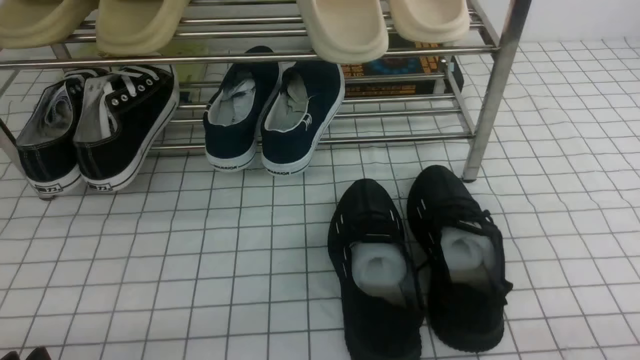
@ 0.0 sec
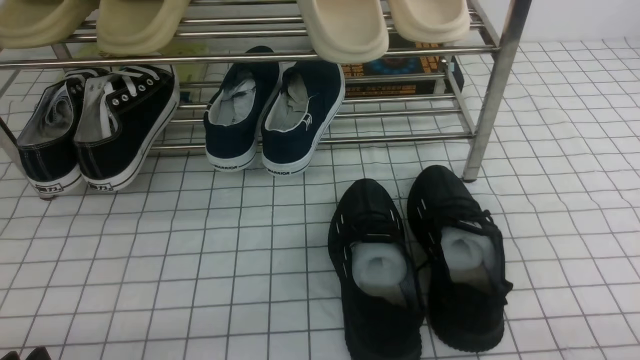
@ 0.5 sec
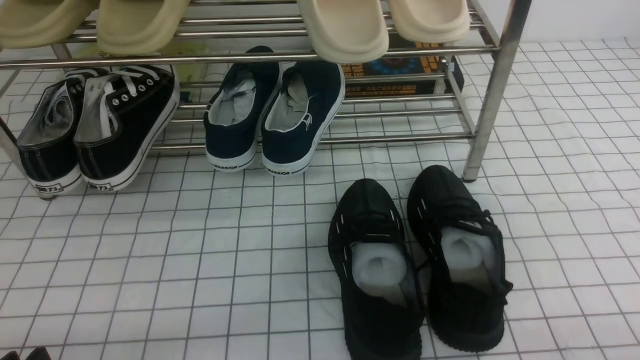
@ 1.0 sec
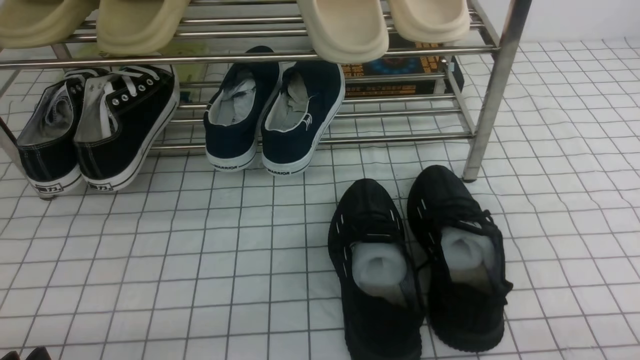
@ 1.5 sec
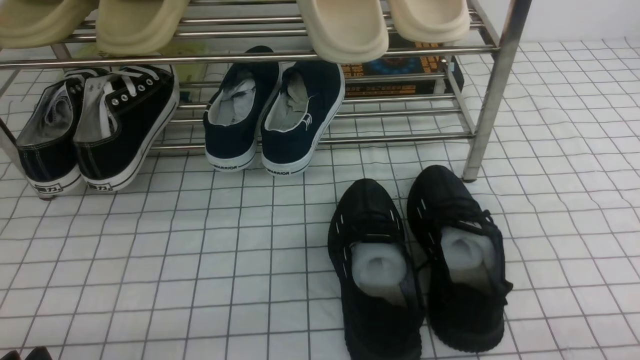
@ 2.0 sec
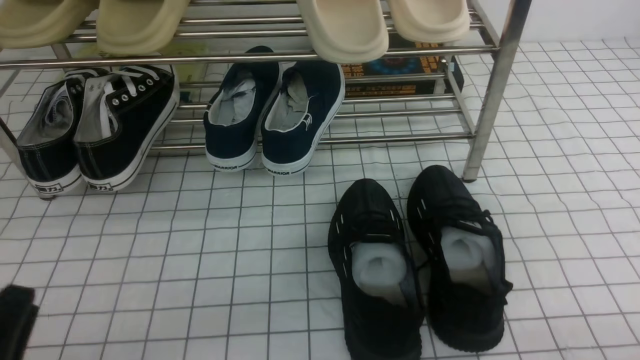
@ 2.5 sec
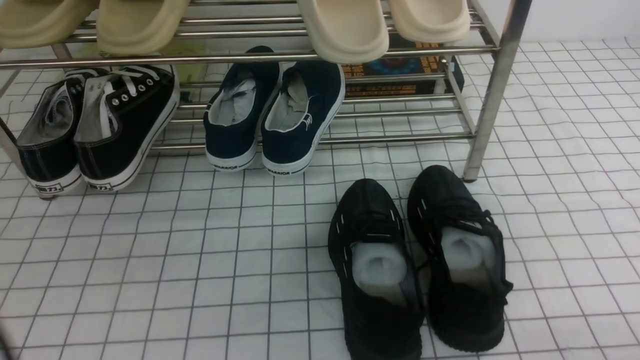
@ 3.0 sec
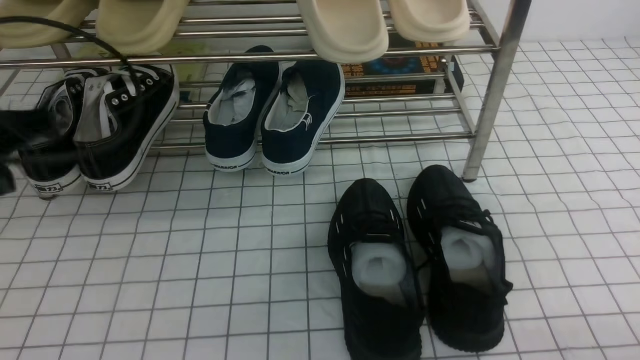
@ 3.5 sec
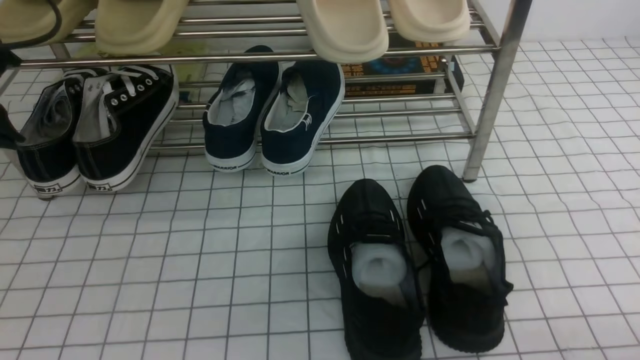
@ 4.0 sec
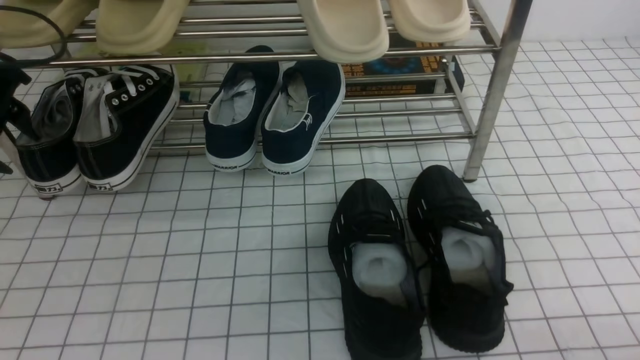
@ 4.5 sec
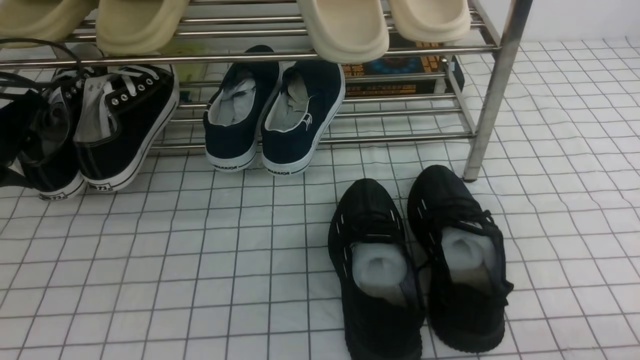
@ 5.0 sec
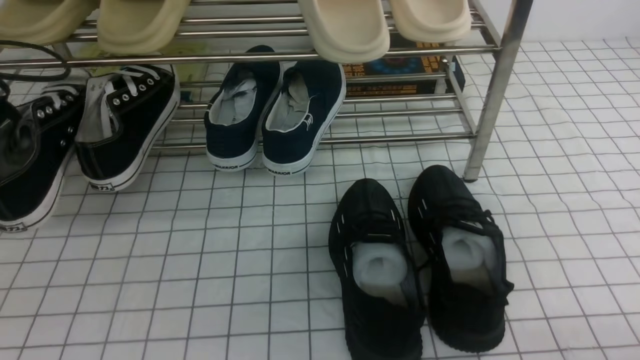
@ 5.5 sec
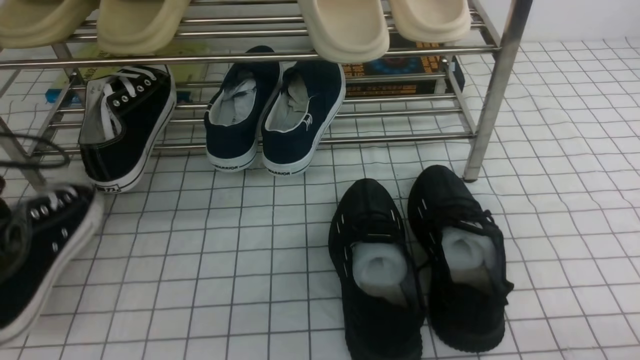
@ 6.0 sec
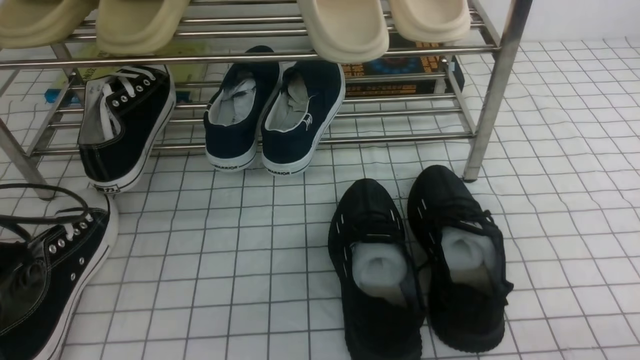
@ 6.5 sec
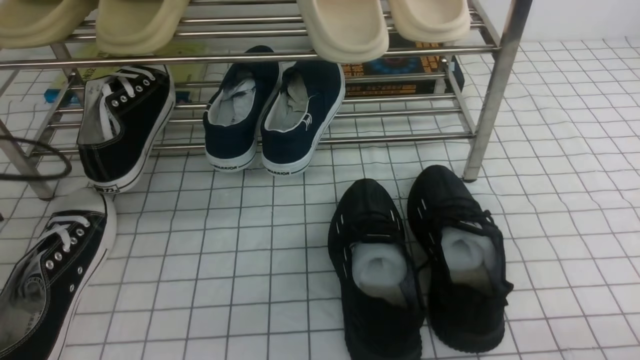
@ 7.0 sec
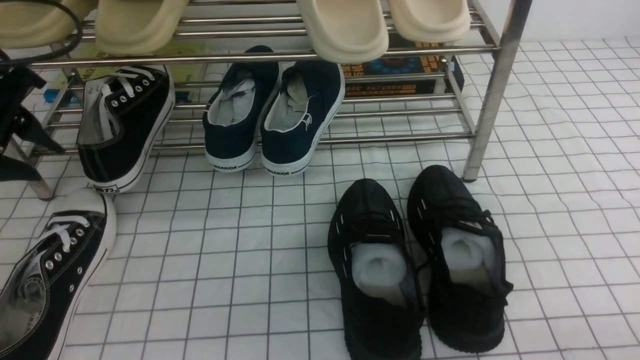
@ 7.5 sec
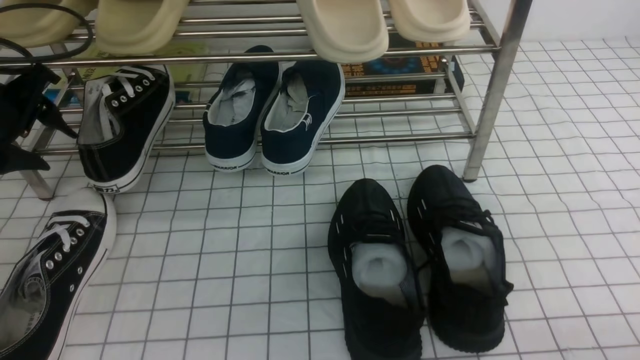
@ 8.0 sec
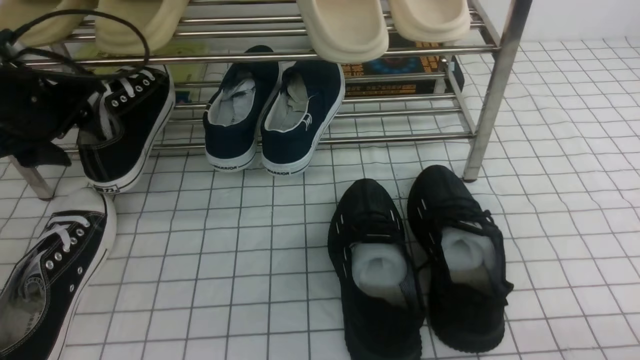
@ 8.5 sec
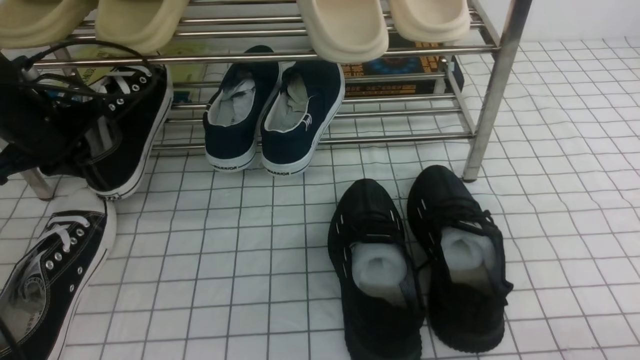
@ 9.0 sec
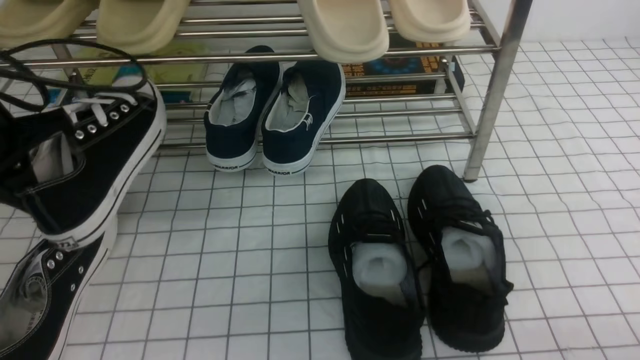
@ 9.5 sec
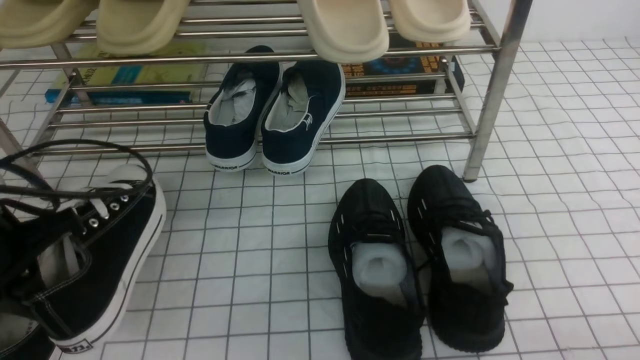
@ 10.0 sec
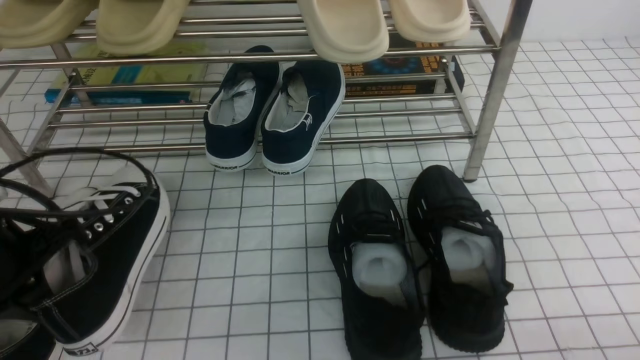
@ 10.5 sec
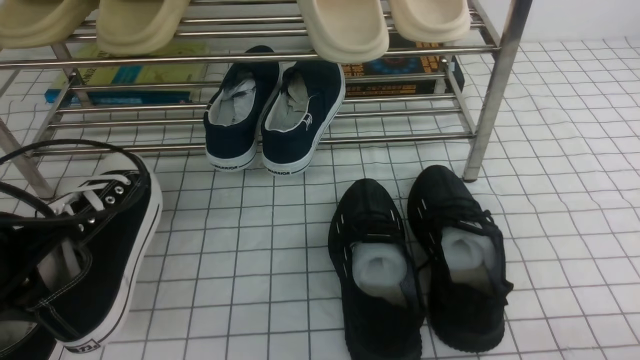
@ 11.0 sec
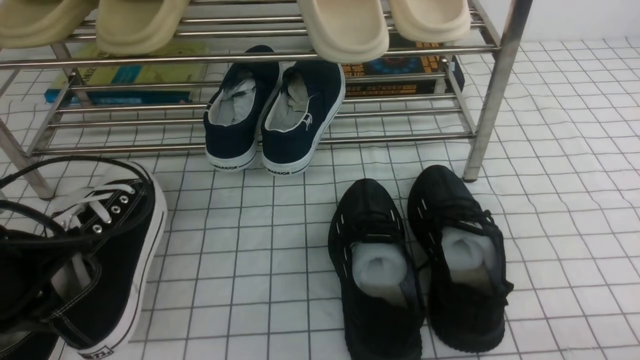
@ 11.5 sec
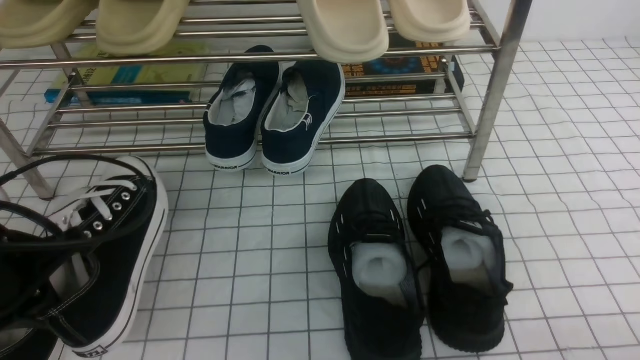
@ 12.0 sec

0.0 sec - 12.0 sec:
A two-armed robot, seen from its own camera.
Step, 0.0 sec - 4.5 sec: use the left arm to clamp a shoe on the left side of the shoe rack.
Step, 5.5 sec - 6.5 sec: Use your left arm to remove the clamped shoe from the shoe rack and put it down.
Step, 7.0 sec - 9.0 sec: use the left arm to clamp a shoe on the left side of the shoe rack.
2.0 sec - 4.0 sec: The left gripper goes approximately 30 cm forward and upward.
4.0 sec - 6.0 sec: The left gripper heads backward and downward, covering about 10 cm, and opens, then closes once more.
6.0 sec - 8.0 sec: The left gripper goes roughly 10 cm forward, and opens its fingers.
8.0 sec - 10.0 sec: The left gripper moves backward, some 15 cm, and closes up.
10.0 sec - 12.0 sec: The grippers stay close to where they were, moving slightly.

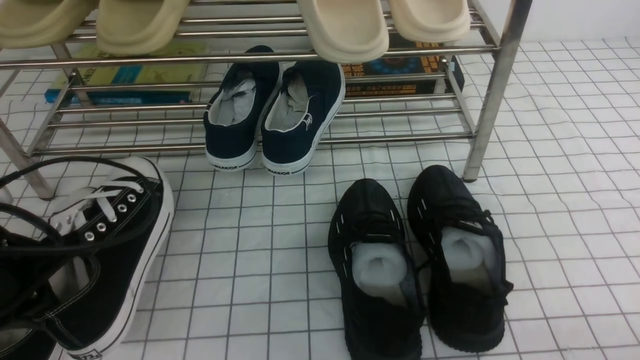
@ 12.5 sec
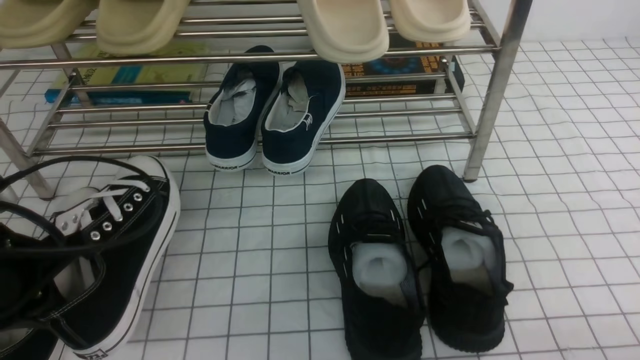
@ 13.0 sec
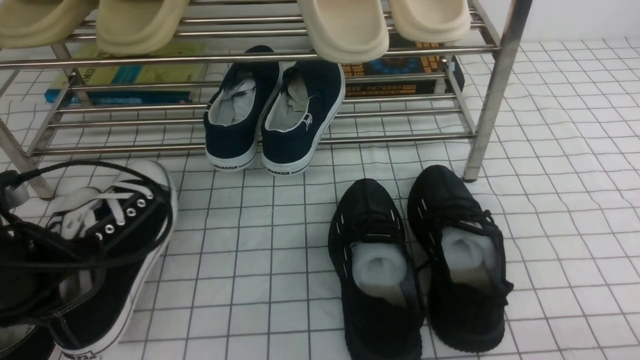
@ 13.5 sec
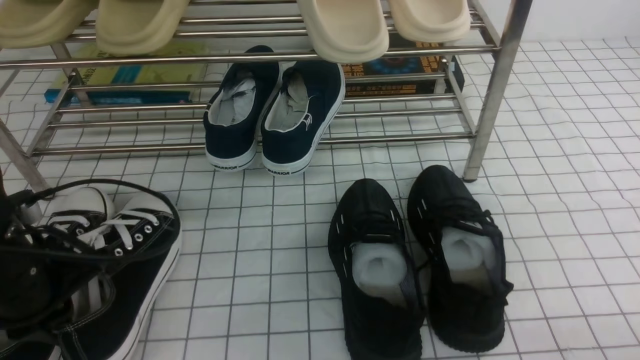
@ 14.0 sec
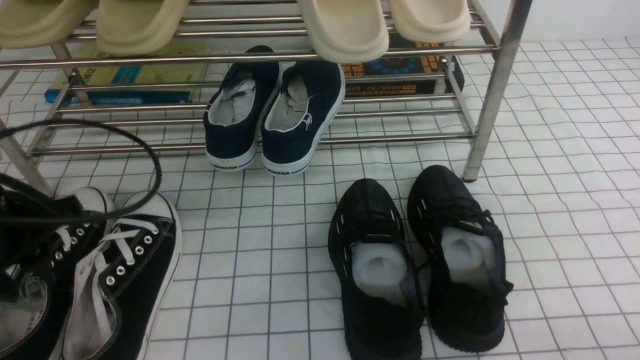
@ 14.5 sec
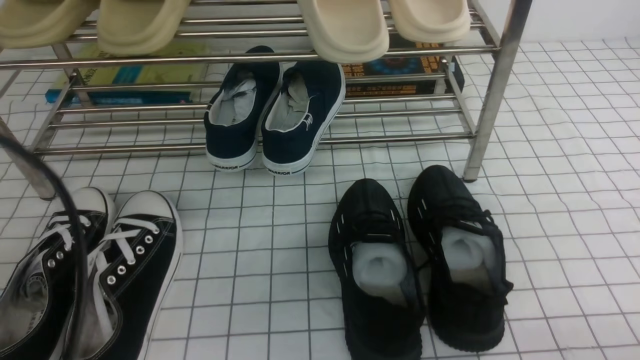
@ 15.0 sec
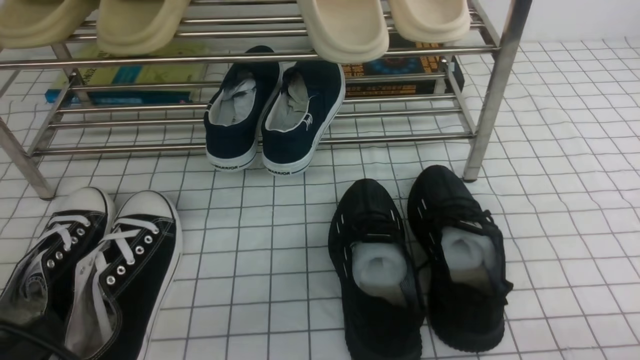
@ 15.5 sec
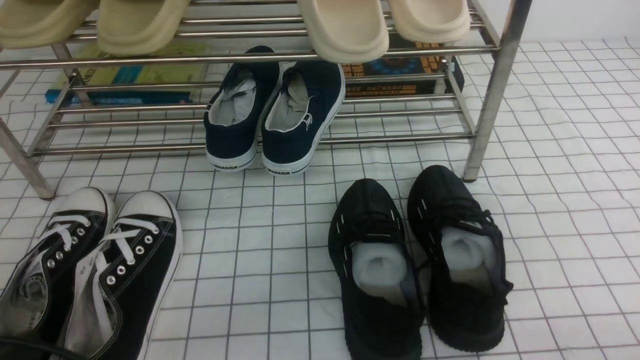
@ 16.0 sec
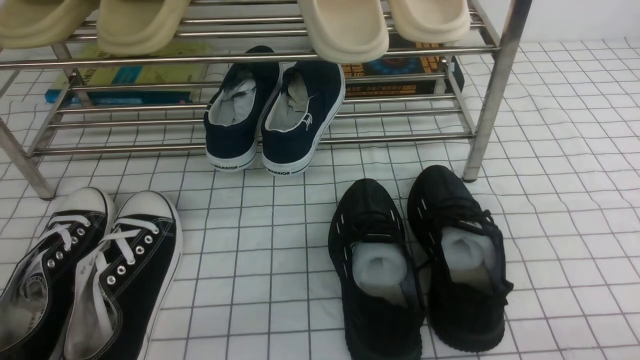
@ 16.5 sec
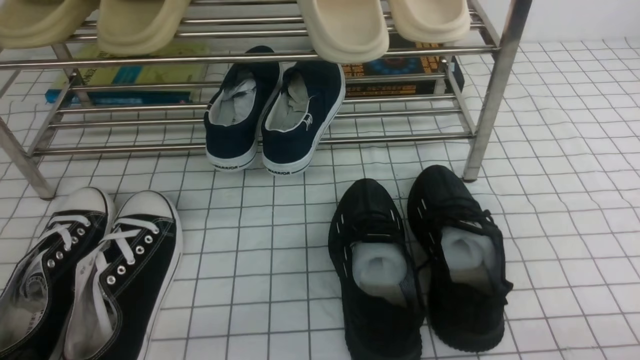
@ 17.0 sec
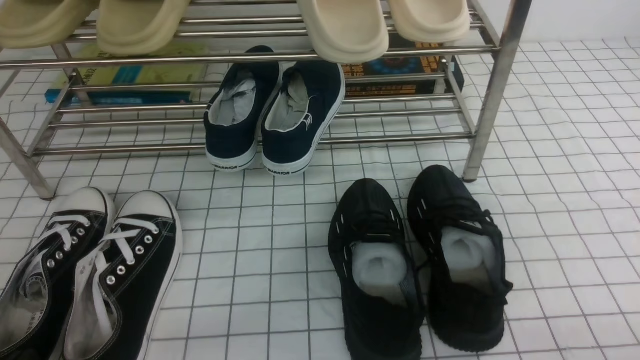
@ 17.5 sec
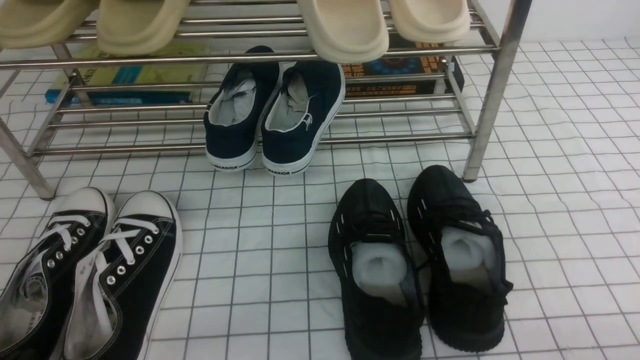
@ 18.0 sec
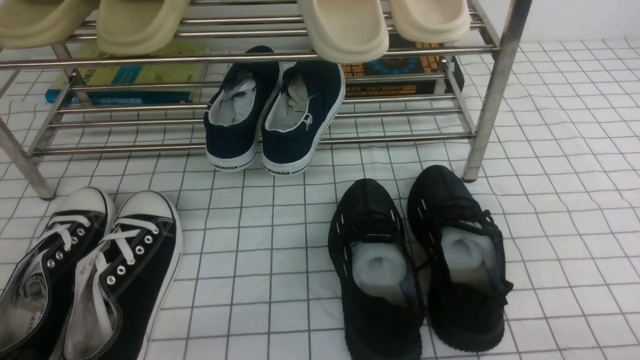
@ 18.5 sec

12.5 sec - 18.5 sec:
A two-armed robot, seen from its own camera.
12.5 sec - 14.5 sec: The left gripper travels upward by about 5 cm, and opens up.
14.5 sec - 16.5 sec: The left gripper is displaced backward and downward by approximately 20 cm, and closes its fingers.
